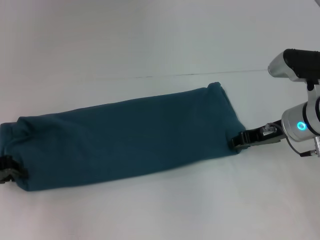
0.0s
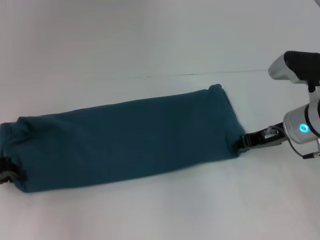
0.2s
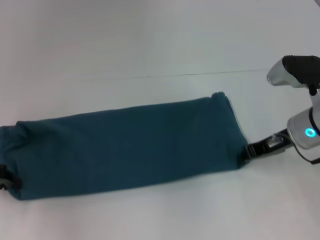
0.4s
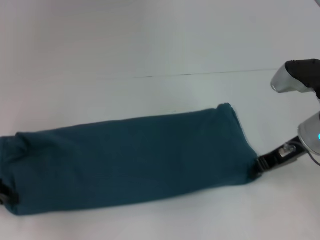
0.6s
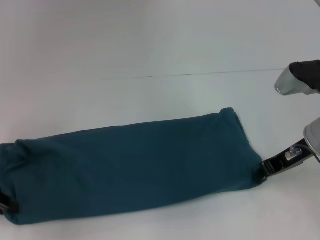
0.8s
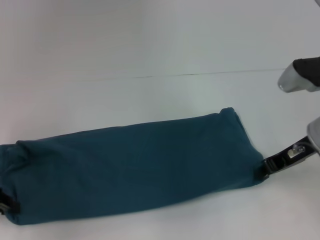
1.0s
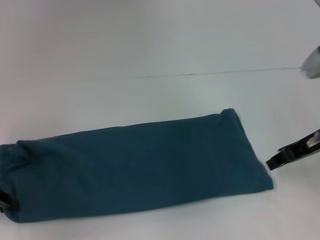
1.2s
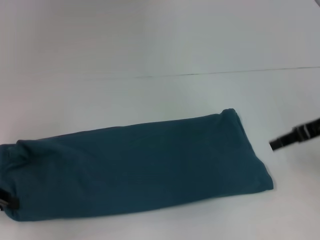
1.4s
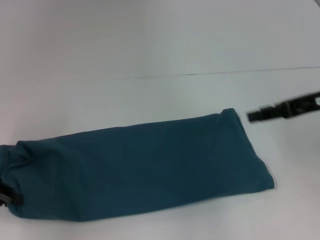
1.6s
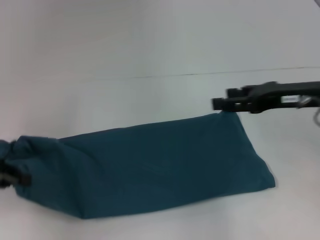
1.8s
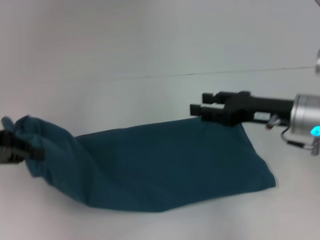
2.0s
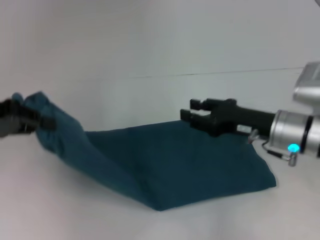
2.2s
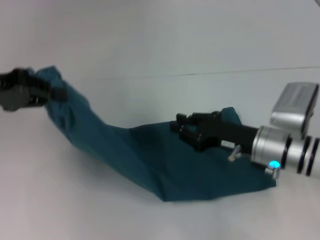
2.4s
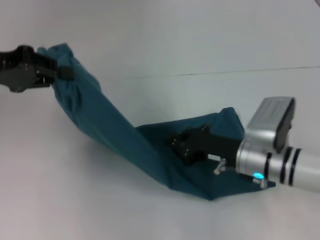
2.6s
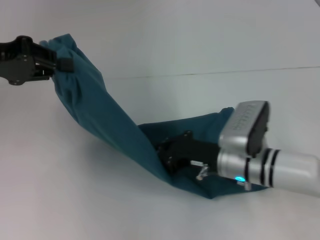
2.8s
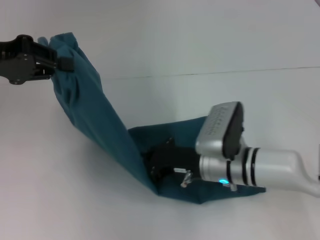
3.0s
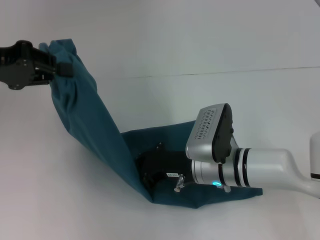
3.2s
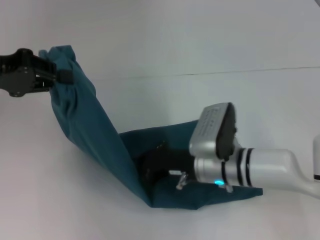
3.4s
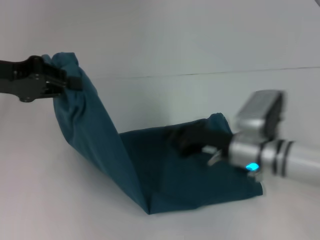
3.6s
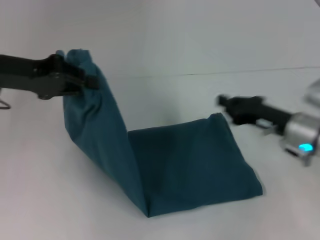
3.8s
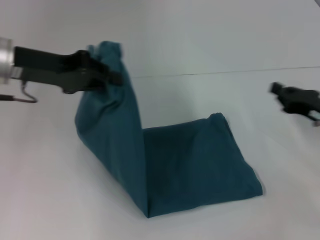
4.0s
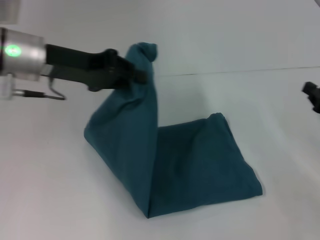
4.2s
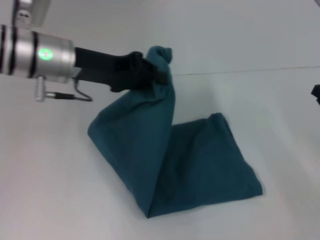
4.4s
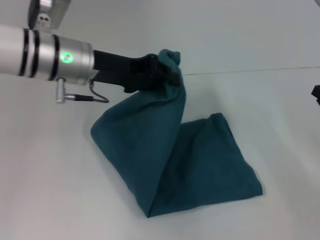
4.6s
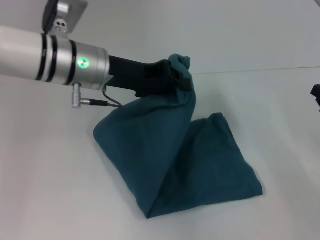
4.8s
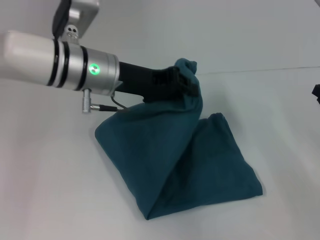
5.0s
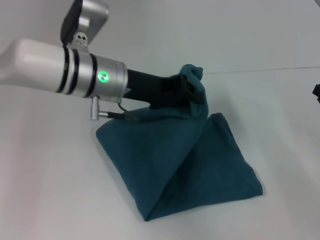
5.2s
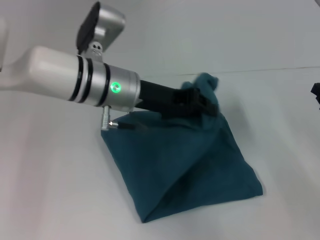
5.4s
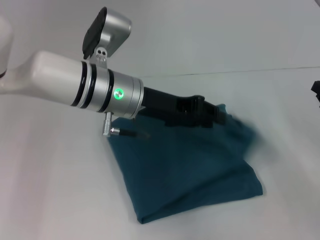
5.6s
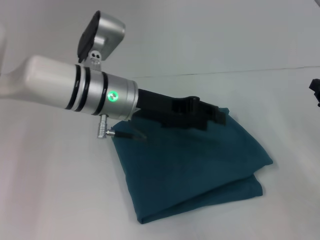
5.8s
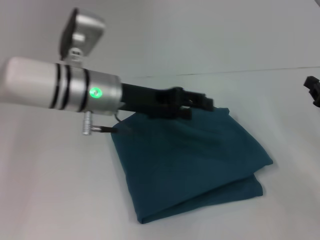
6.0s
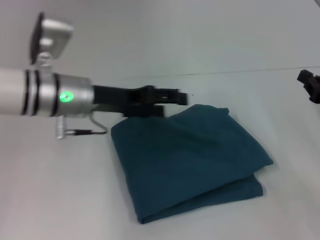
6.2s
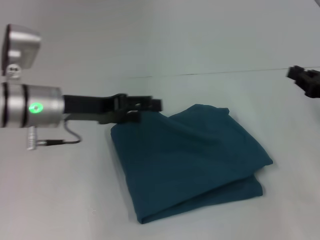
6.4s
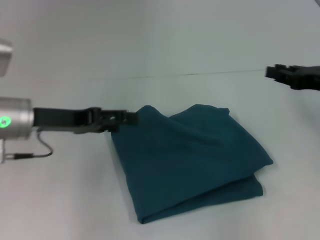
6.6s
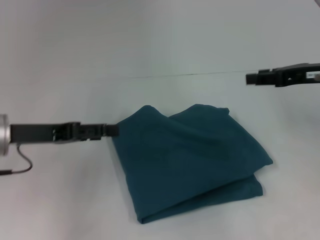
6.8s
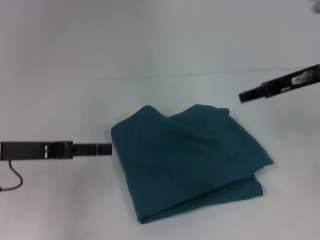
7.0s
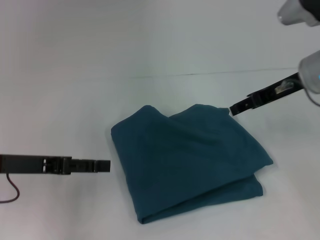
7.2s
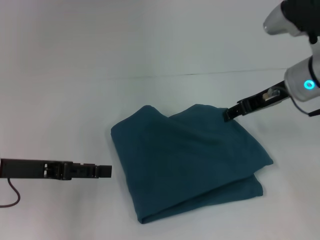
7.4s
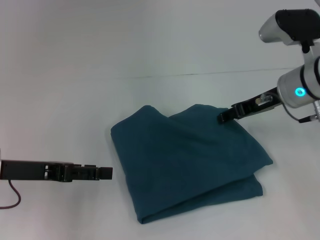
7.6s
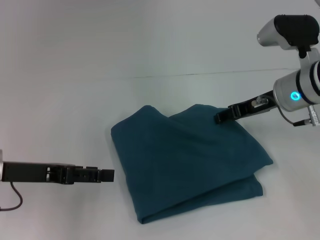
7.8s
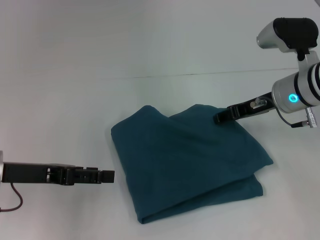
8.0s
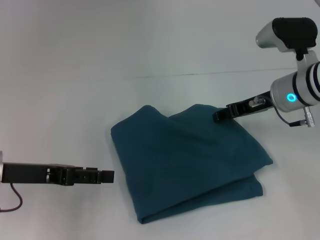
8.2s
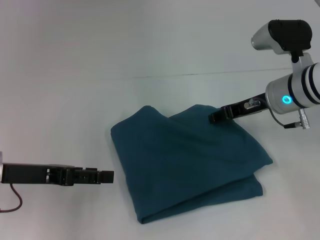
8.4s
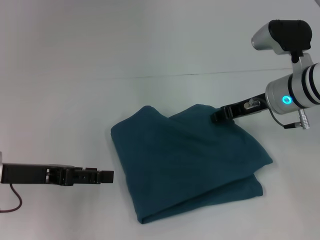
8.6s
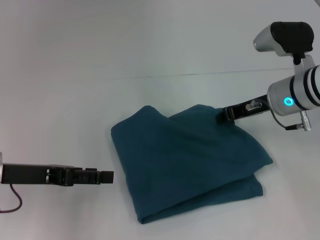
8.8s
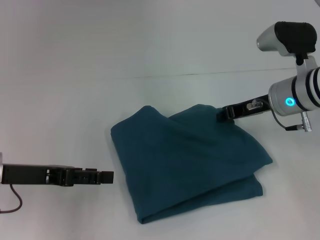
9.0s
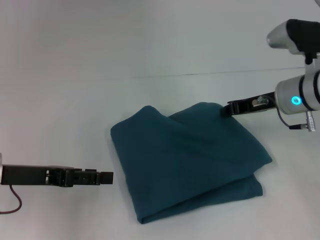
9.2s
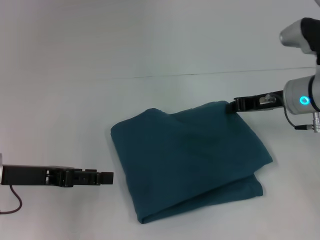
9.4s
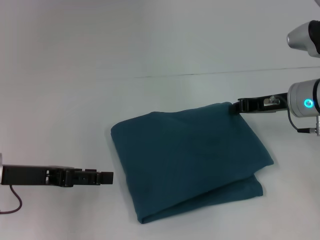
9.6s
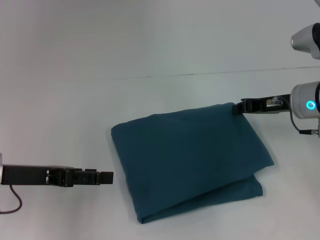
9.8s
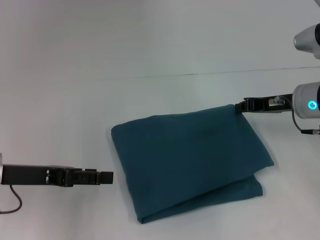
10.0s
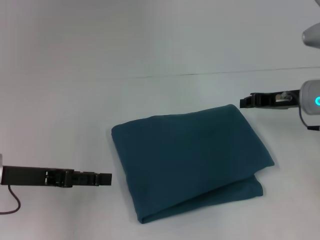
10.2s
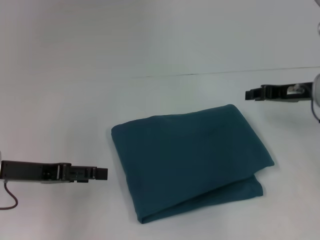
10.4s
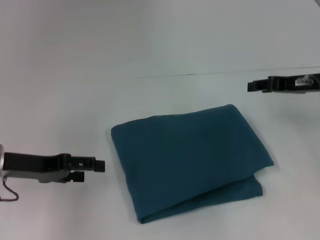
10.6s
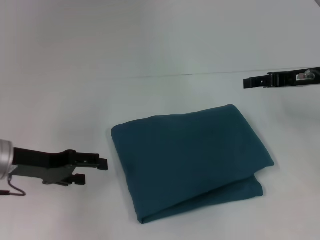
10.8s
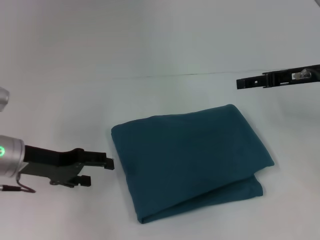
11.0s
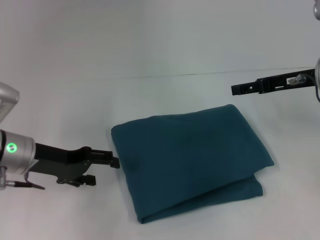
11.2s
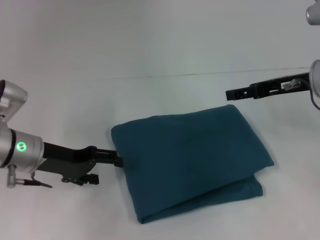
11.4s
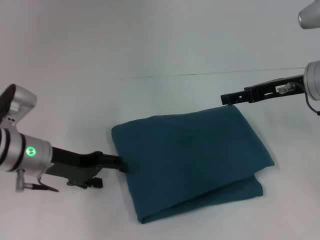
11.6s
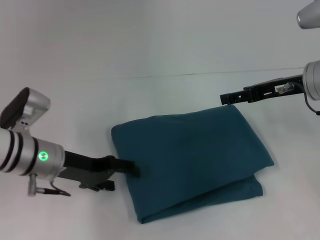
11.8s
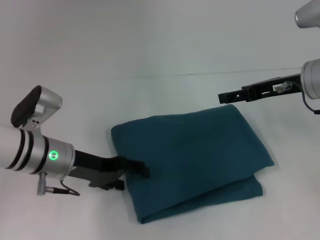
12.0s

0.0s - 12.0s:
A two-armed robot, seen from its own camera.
Step, 0.0s - 3.4s: Press the middle of the clothes with your right hand.
Step, 3.6s - 5.6s: Fold the clothes to the left.
0.0s - 1.6s: The right gripper heads upward and to the right, covering approximately 10 cm.
1.6s - 3.0s: The left gripper heads upward, forward and to the right, covering approximately 15 cm; the right gripper heads to the left and downward, covering some 25 cm, and closes up.
3.0s - 4.4s: The left gripper goes approximately 15 cm to the right. Meanwhile the right gripper travels to the right by approximately 25 cm.
4.4s - 6.0s: The left gripper is displaced to the right by about 5 cm, and opens.
6.0s - 7.6s: The right gripper travels to the left, forward and upward by about 15 cm, and opens up. The left gripper travels to the left and backward by about 15 cm, and opens its fingers.
7.6s - 9.0s: The right gripper closes its fingers.
9.0s - 10.4s: The right gripper heads to the right, covering roughly 5 cm.
10.4s - 12.0s: The left gripper travels to the right by roughly 10 cm; the right gripper opens up.

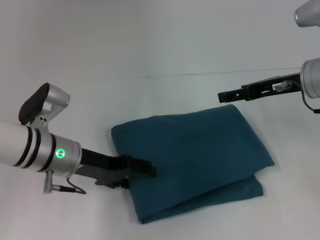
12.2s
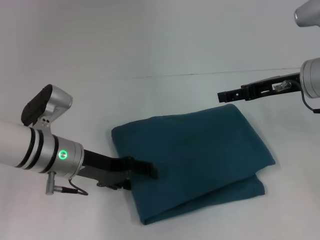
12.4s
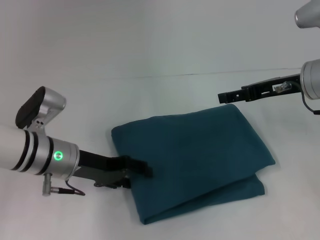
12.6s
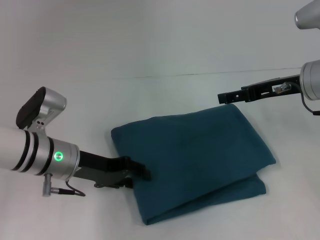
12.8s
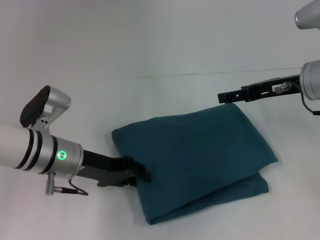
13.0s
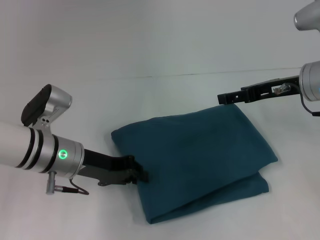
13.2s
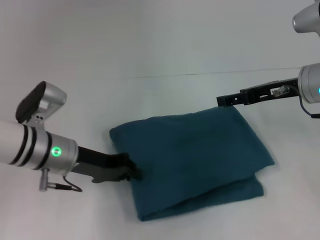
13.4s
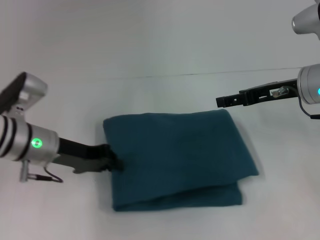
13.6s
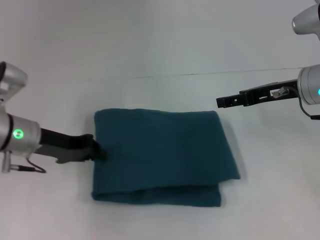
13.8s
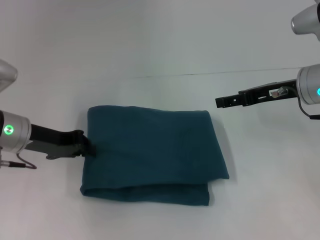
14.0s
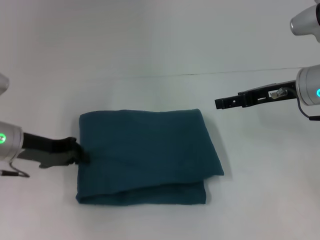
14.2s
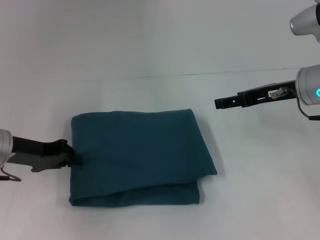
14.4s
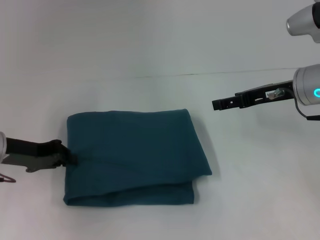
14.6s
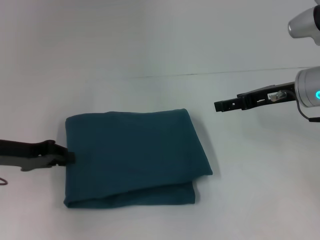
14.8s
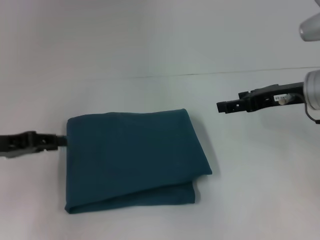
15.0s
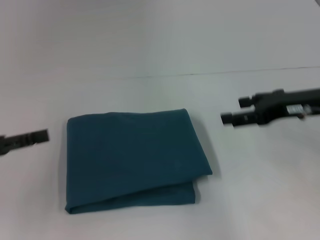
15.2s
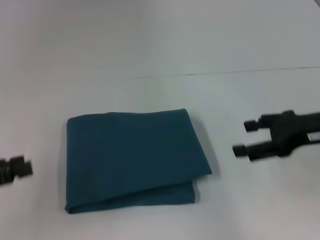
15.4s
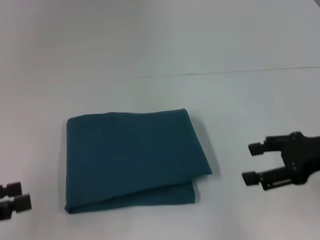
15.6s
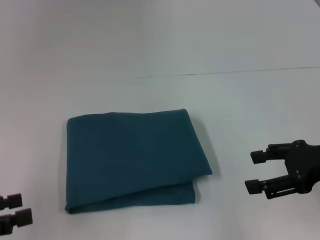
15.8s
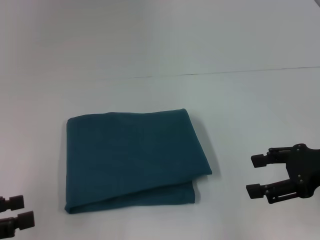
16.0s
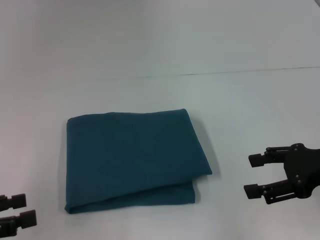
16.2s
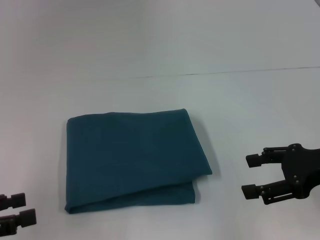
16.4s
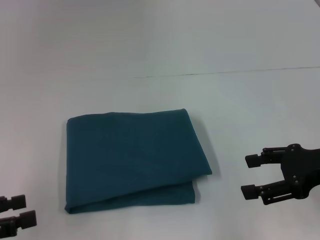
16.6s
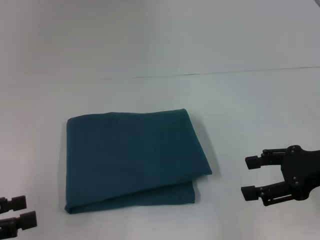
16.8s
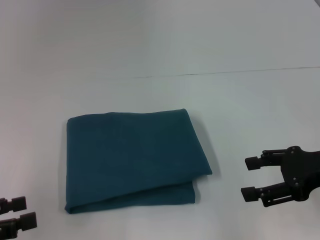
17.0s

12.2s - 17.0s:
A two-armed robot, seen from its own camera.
12.2s - 13.8s: The left gripper is displaced to the left by approximately 5 cm, and closes its fingers.
13.8s - 15.4s: The left gripper moves backward and to the left, roughly 20 cm, and opens. Meanwhile the right gripper heads backward, covering roughly 5 cm.
15.4s - 17.0s: The left gripper opens up.

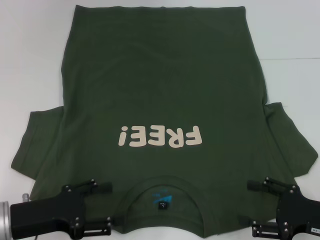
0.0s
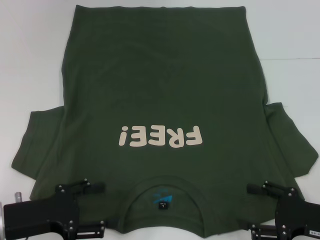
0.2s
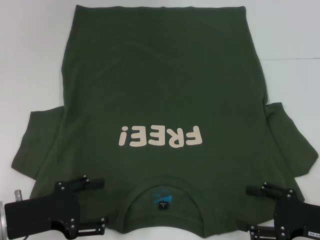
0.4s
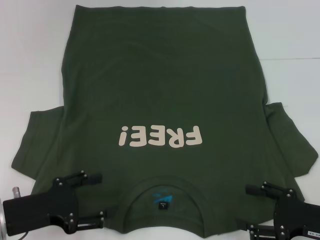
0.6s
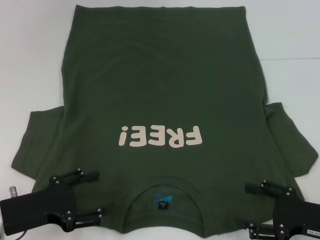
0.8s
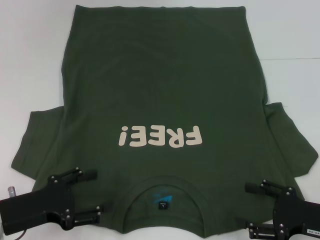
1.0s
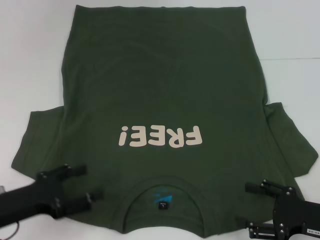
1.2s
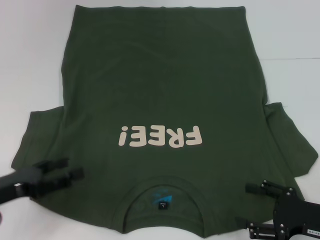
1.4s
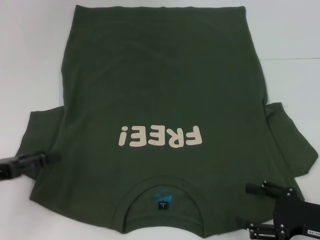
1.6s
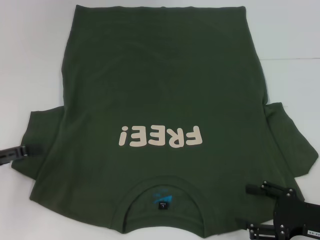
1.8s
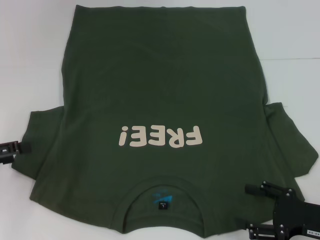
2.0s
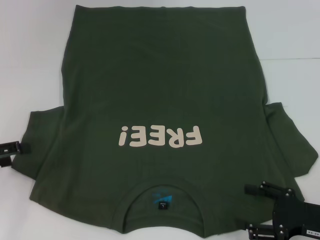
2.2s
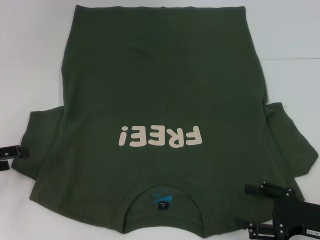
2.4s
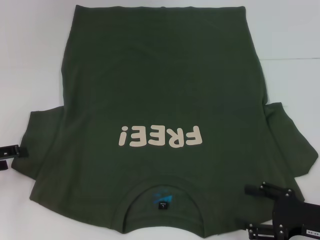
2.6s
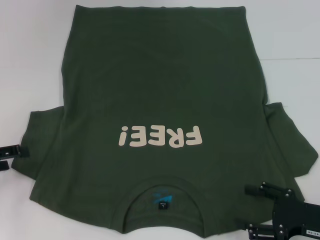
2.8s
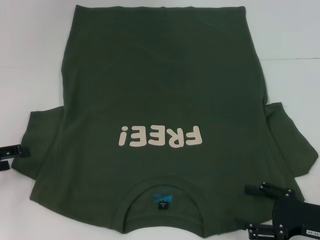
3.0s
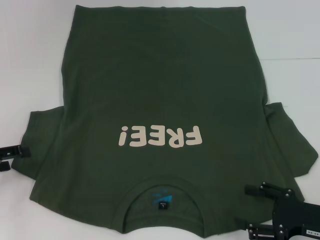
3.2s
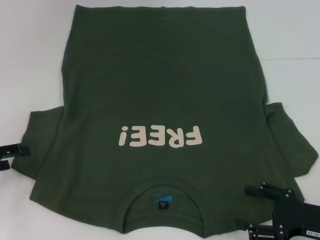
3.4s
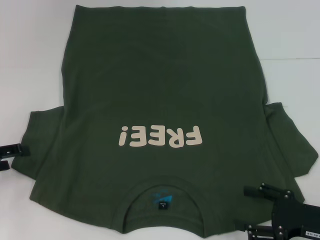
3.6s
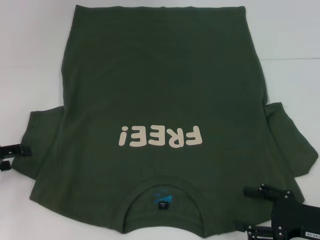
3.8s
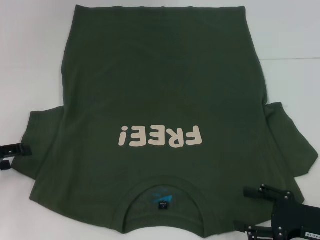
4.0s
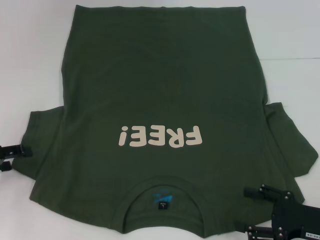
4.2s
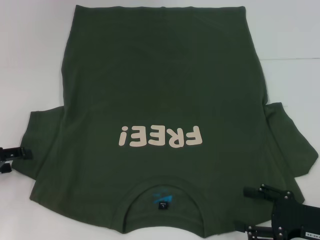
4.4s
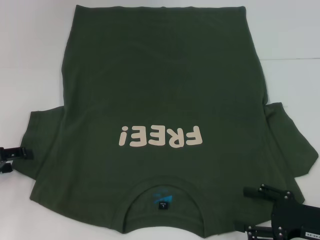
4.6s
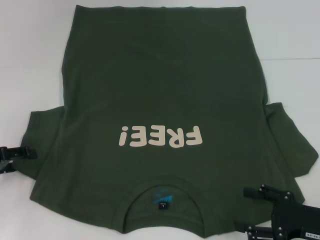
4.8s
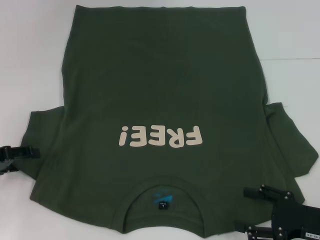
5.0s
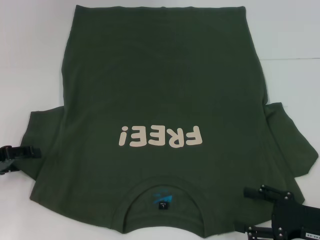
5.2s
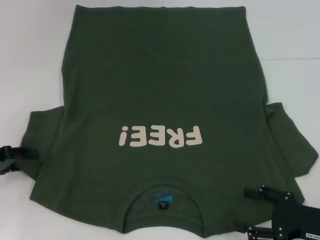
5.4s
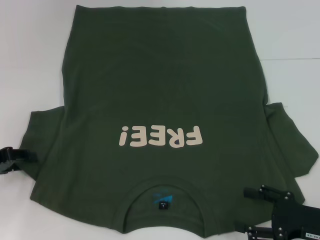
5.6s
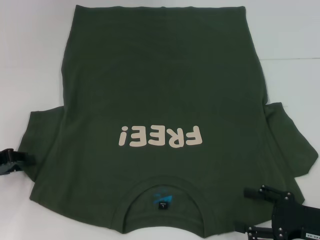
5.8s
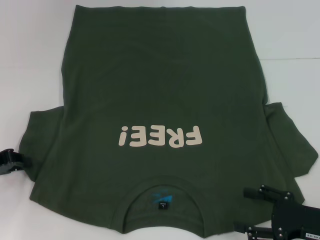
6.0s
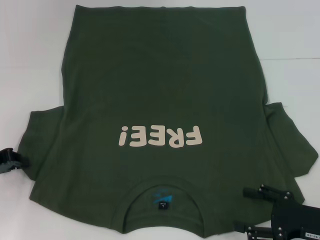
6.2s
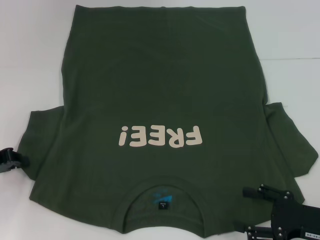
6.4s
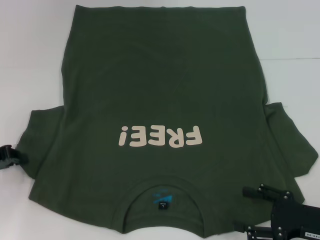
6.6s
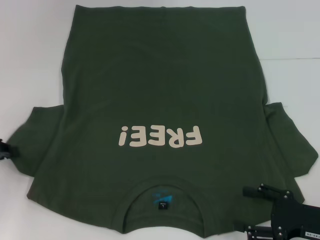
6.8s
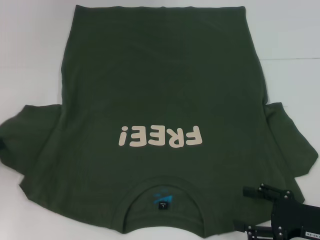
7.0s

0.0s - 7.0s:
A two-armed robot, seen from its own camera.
0.0s - 1.4s: The left gripper moves about 5 cm.
1.4s - 2.8s: The left gripper heads to the left and forward, covering roughly 10 cm.
2.8s - 4.2s: Neither gripper changes place.
5.6s - 7.0s: The left gripper closes up.
